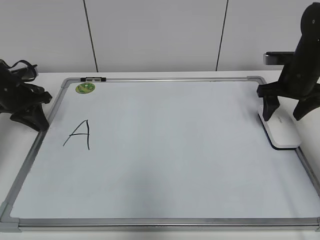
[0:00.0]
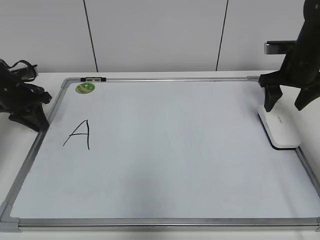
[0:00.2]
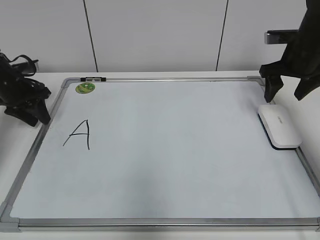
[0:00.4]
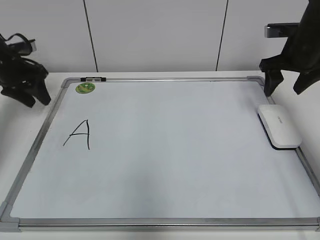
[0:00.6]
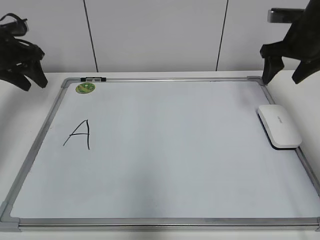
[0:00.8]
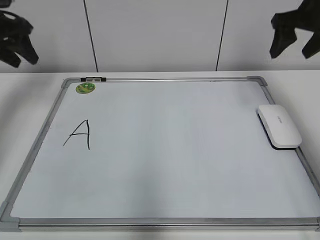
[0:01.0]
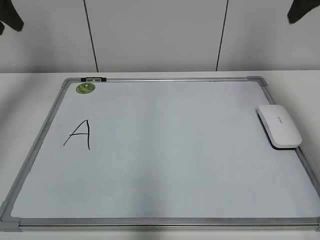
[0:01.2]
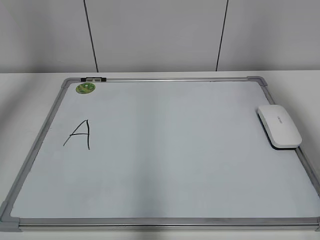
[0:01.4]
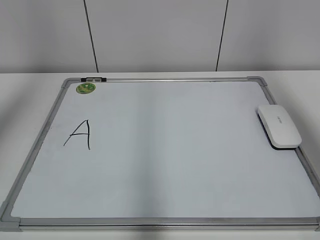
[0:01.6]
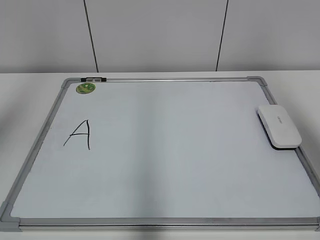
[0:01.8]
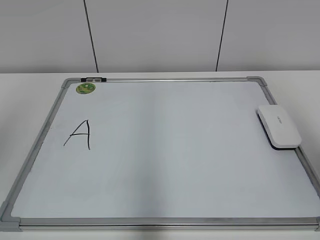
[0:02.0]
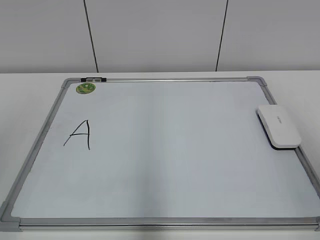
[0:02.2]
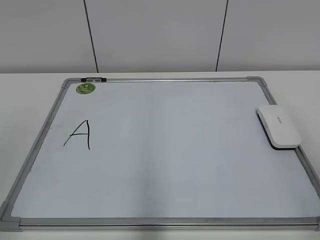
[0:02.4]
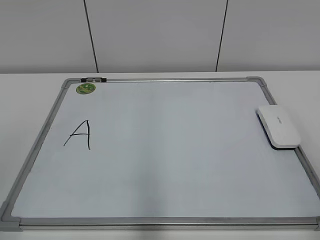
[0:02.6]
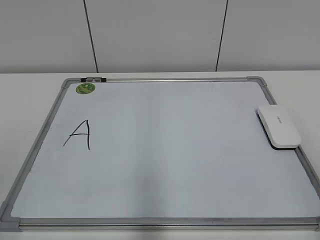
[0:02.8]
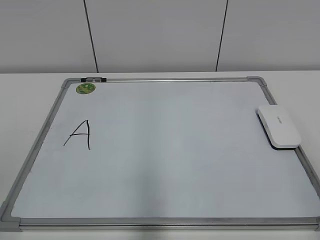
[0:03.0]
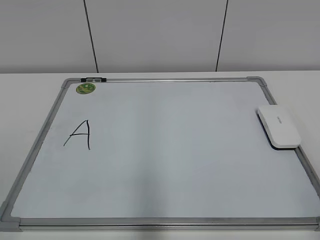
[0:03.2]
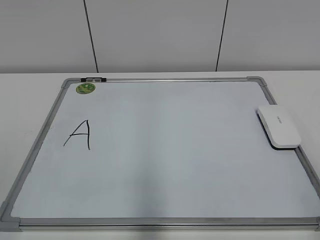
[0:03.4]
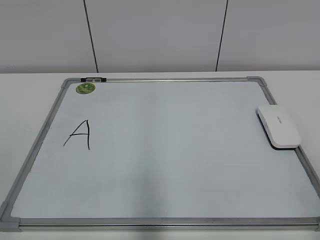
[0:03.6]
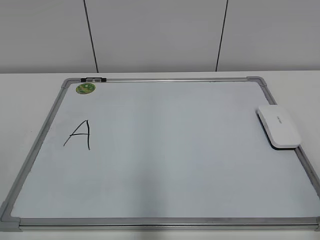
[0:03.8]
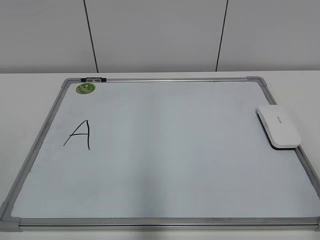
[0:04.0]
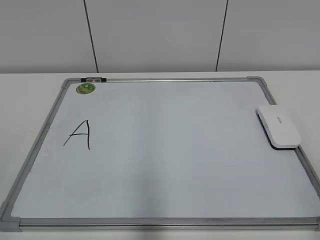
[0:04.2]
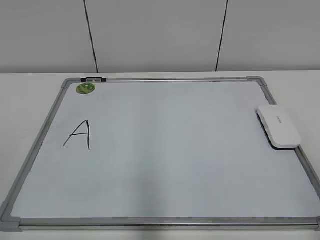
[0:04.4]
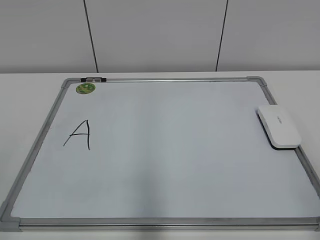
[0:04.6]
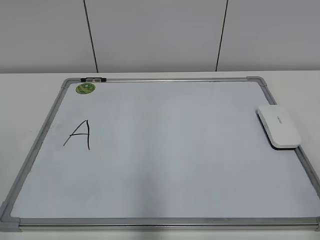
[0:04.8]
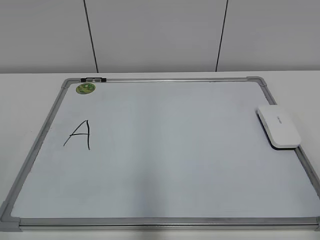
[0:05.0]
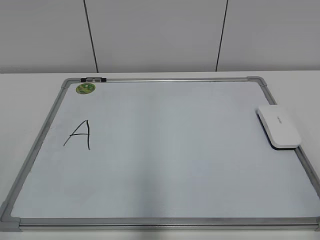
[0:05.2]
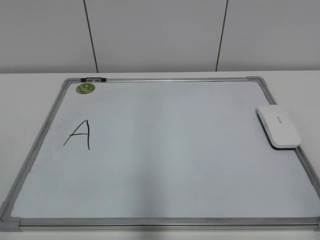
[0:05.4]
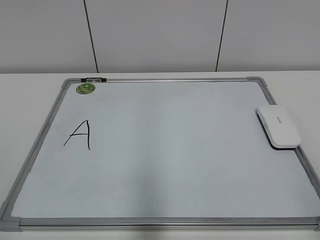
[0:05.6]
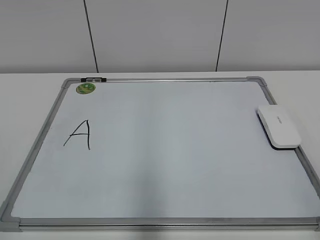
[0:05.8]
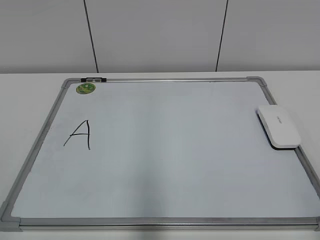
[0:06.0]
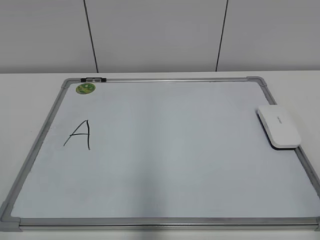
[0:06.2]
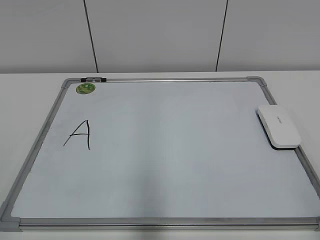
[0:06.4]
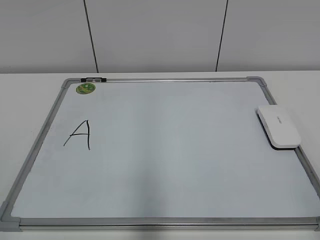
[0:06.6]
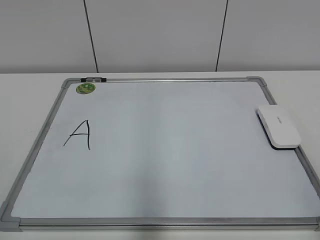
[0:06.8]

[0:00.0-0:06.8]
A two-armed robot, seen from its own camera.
Task of the whole recording: pick up the eraser on the blackboard and erase the letter "a".
0:00.0 to 0:01.4: The right gripper heads upward and backward, covering roughly 30 cm. The left gripper heads upward, covering some 30 cm, and opens.
0:01.4 to 0:02.8: The left gripper moves backward, roughly 35 cm. The right gripper is displaced backward and downward by about 35 cm.
0:05.4 to 0:06.8: Both grippers stay put.

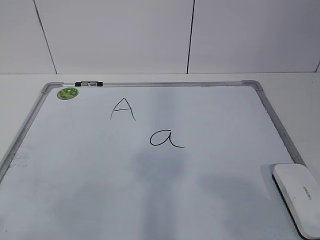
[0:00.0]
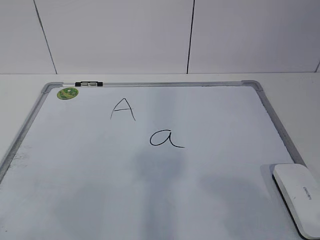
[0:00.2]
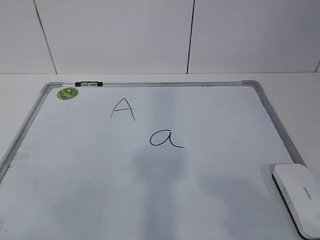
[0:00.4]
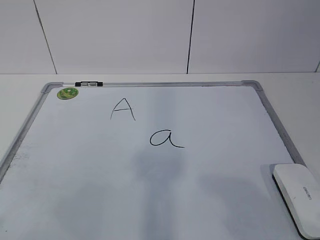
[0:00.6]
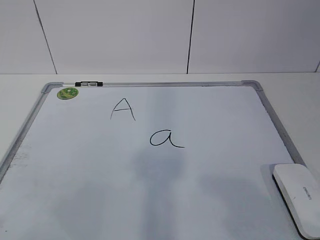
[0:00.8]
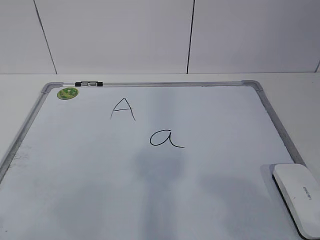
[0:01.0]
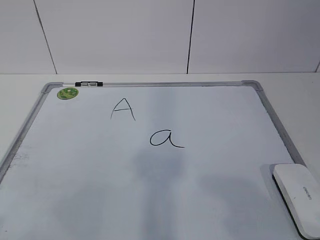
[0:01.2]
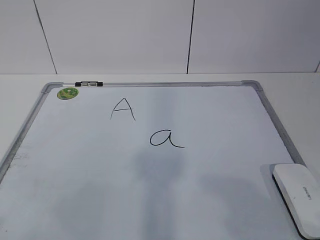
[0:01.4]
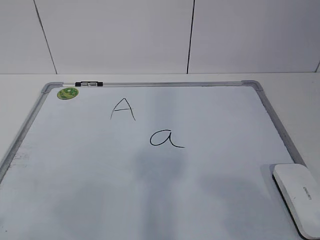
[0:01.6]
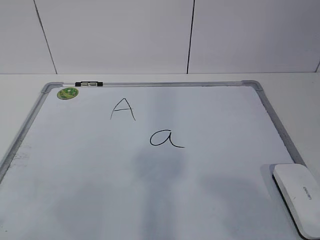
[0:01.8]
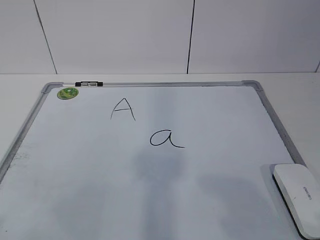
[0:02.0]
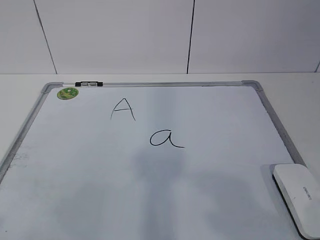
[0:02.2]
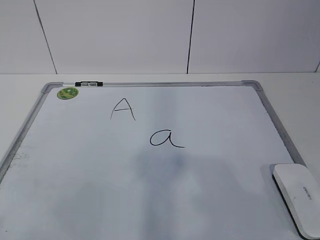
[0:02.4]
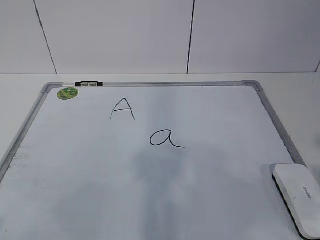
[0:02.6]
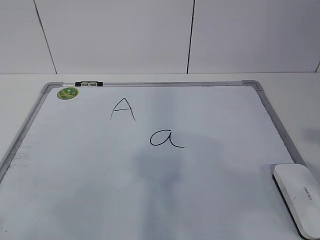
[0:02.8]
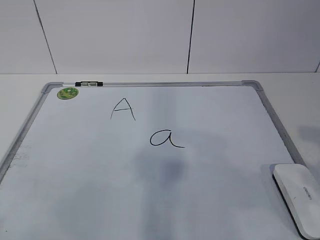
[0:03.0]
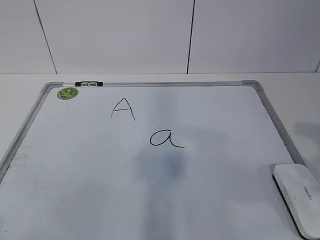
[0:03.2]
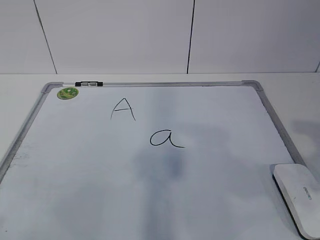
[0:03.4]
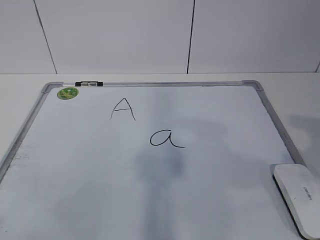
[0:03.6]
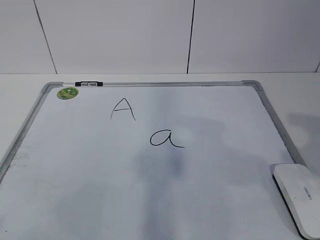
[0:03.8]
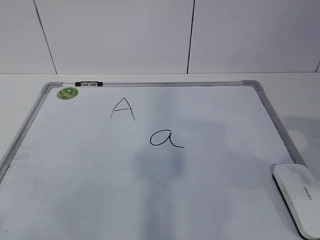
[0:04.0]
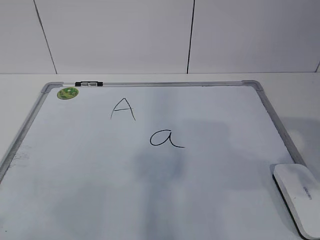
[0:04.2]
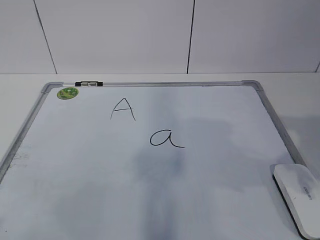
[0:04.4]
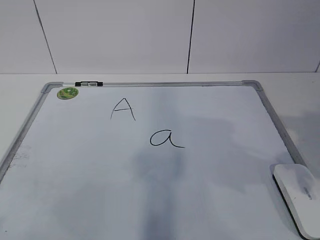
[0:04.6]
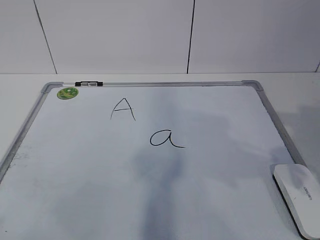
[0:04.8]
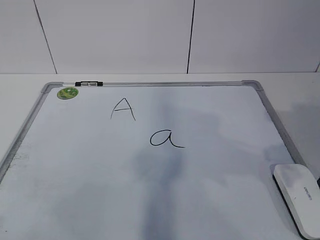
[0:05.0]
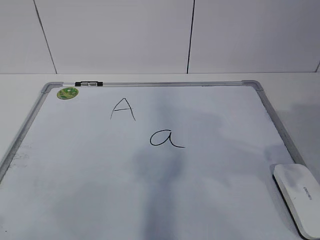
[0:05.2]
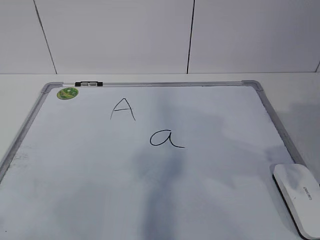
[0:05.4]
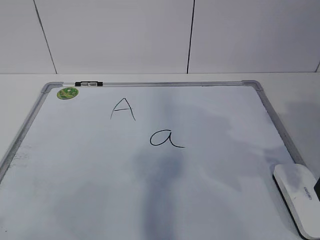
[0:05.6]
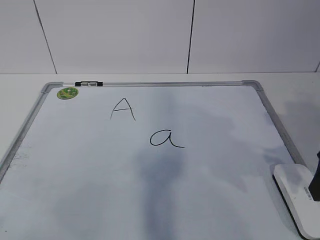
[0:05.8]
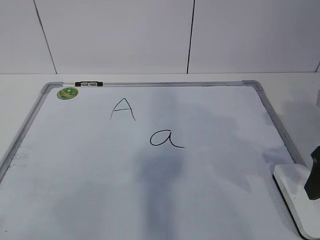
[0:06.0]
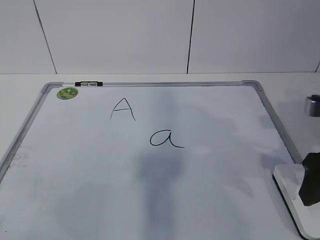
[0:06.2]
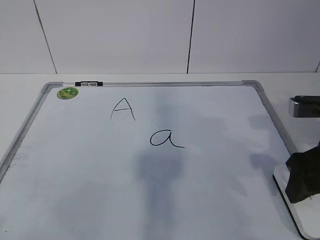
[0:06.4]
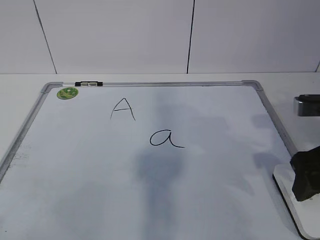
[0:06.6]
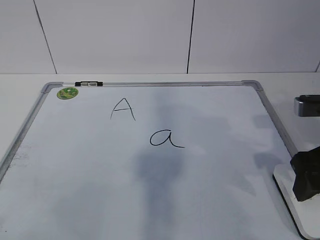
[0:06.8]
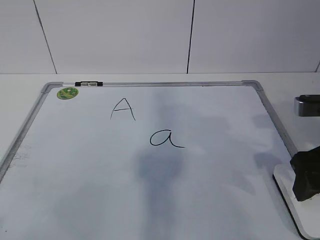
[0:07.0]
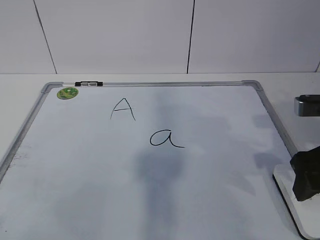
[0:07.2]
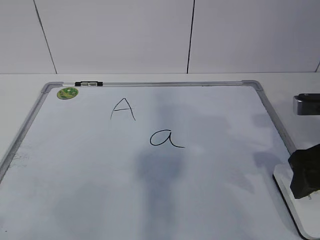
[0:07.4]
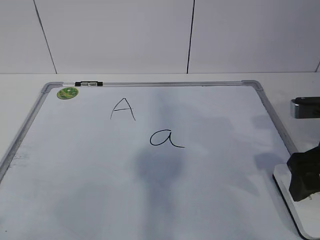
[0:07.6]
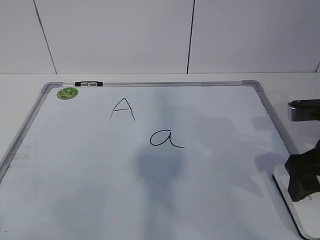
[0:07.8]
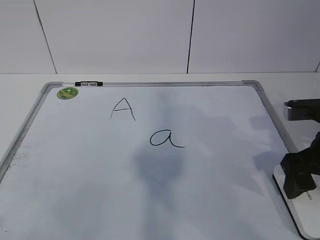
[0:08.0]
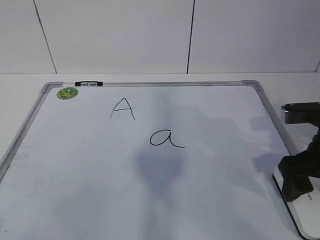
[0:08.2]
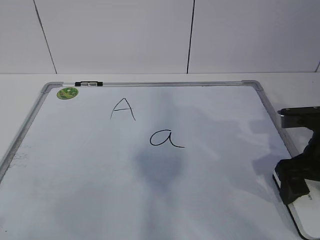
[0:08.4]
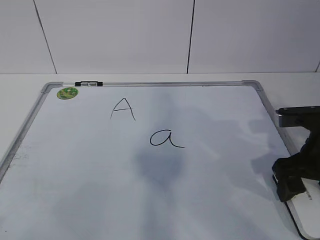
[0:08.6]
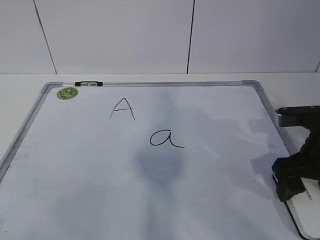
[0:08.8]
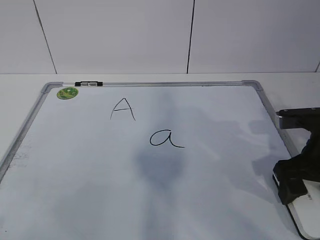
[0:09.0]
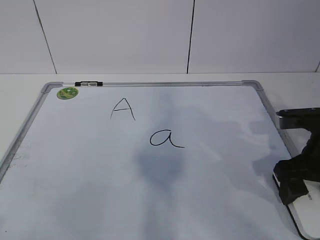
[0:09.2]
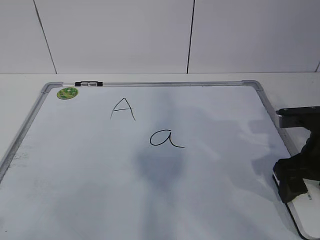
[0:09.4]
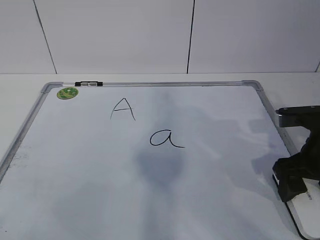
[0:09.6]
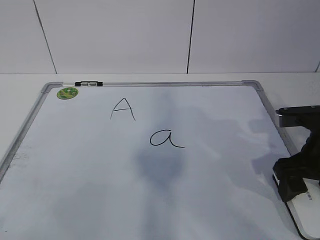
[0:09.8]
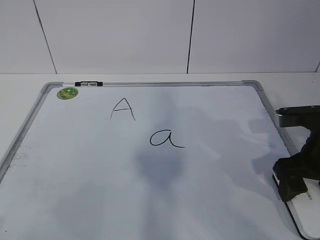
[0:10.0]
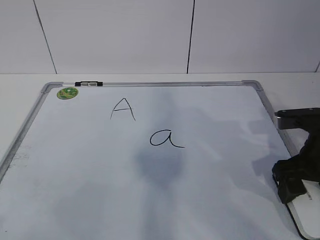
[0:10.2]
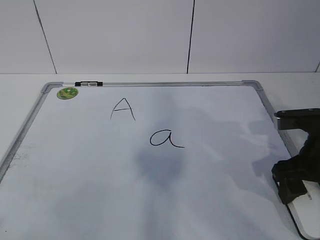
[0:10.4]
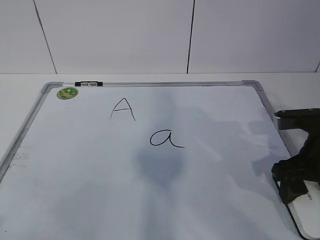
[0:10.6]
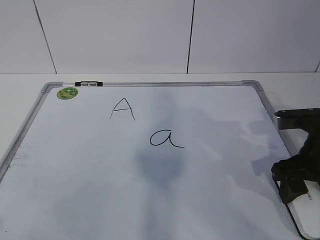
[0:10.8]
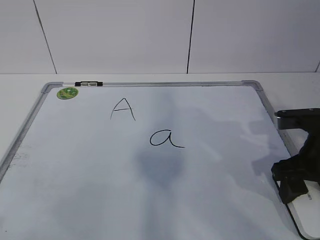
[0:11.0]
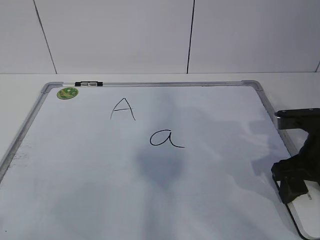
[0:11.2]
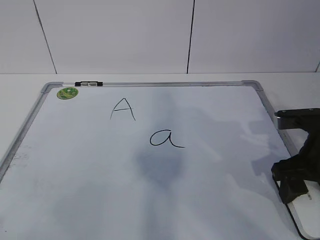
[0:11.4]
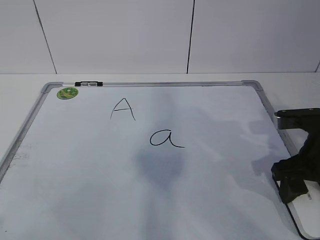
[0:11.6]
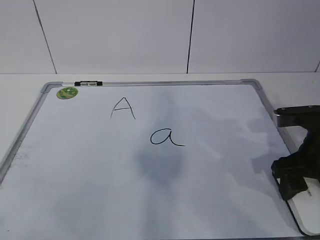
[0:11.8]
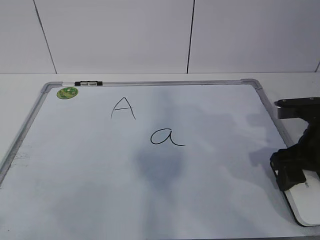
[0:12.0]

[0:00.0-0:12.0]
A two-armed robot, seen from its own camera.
Task of the whole recording: pick up the eraser on the blackboard and erase the letter "a".
Step, 0:00.0 to 0:08.8: Grab the eraser with your right hand.
0:04.4 to 0:06.0: The right gripper is displaced forward by approximately 5 cm.
0:06.0 to 0:07.6: The right gripper opens its fingers.
0:07.6 to 0:09.0: The grippers move only a little.
0:10.4 to 0:12.0: The right gripper closes.

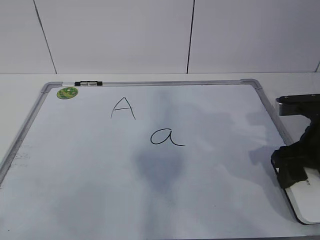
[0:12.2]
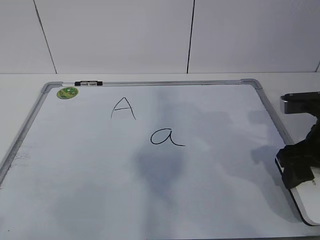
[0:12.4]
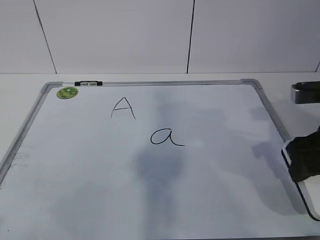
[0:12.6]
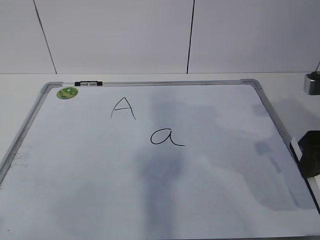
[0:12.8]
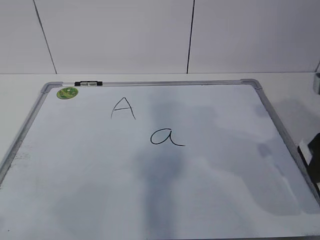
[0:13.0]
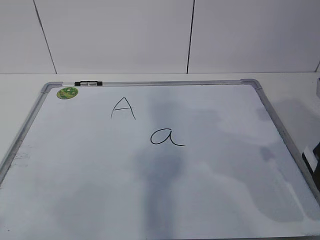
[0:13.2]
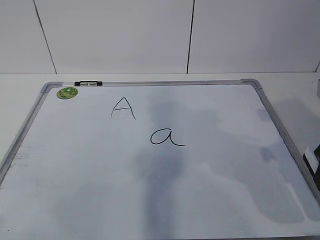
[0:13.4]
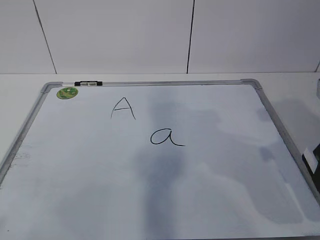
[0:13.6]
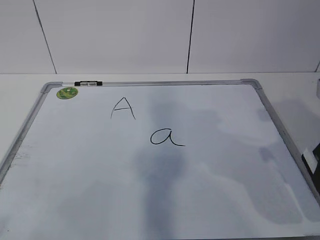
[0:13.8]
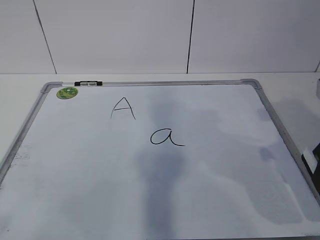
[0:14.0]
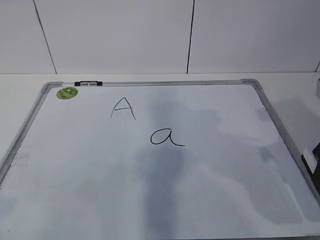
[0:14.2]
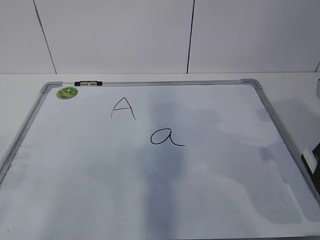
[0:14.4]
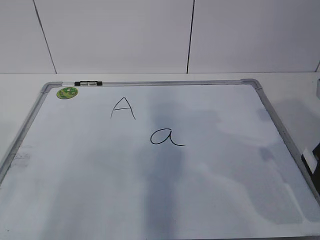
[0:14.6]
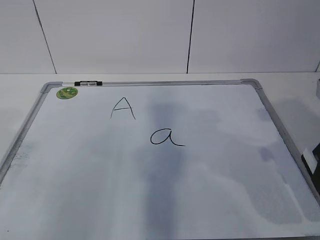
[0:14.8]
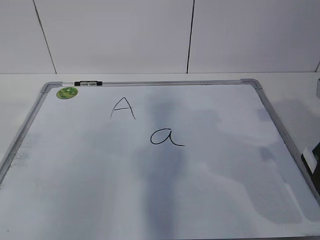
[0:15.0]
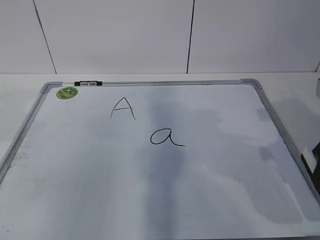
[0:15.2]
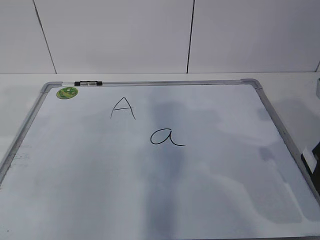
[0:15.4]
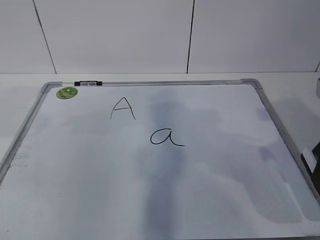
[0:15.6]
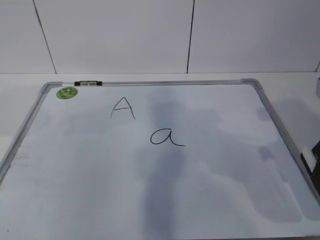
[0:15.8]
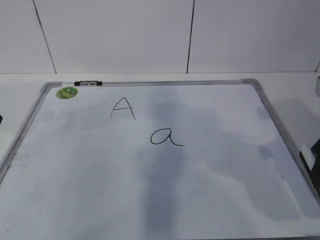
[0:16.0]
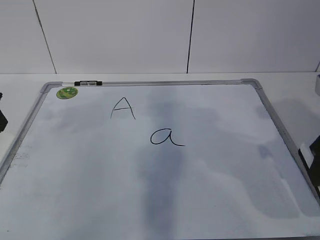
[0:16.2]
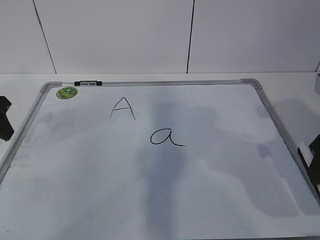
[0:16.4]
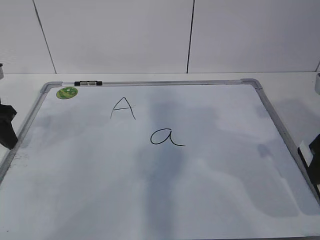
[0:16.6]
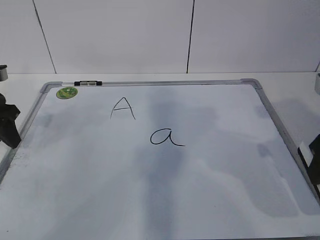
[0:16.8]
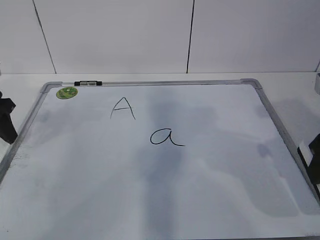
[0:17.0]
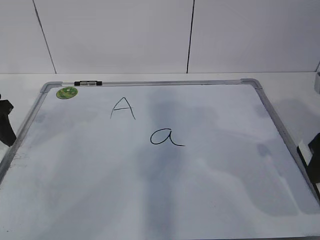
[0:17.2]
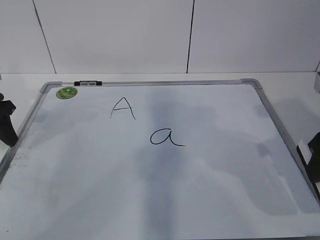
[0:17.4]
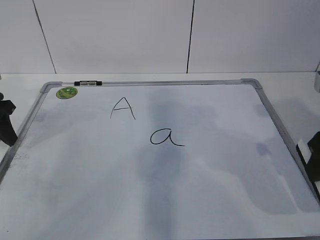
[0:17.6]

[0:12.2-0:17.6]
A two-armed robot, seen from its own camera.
Task of the whole recording: pick up the eraser on the blackboard and erase the letter "a".
Step, 0:12.2 to 0:16.0: Hold the drawing board steady with your left hand.
0:12.2 to 0:13.6: The right gripper is displaced upward and backward by roughly 10 cm.
0:16.2 to 0:17.6: The left gripper moves downward, some 5 cm.
